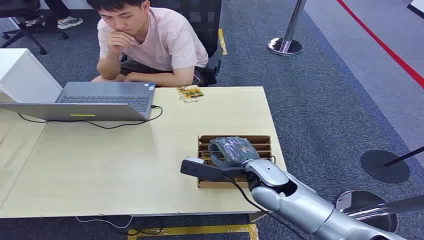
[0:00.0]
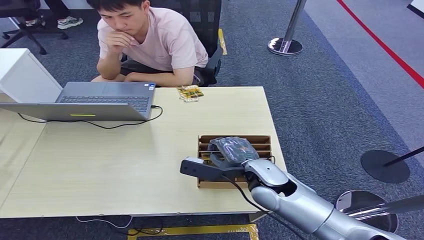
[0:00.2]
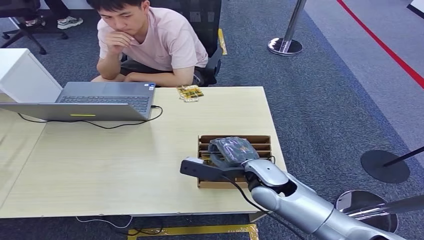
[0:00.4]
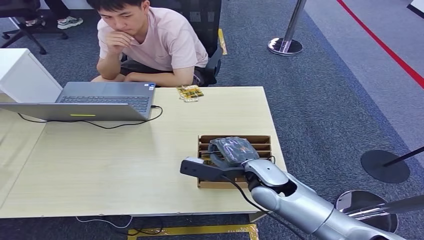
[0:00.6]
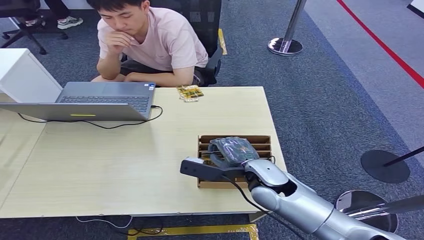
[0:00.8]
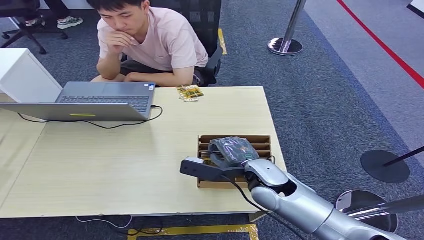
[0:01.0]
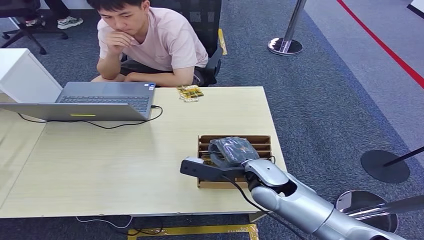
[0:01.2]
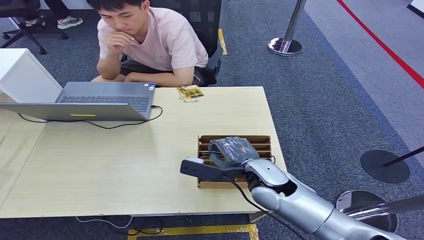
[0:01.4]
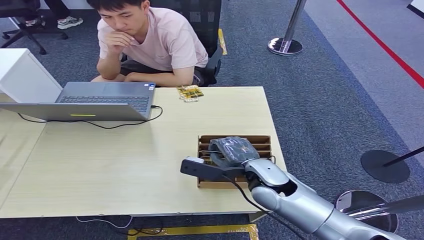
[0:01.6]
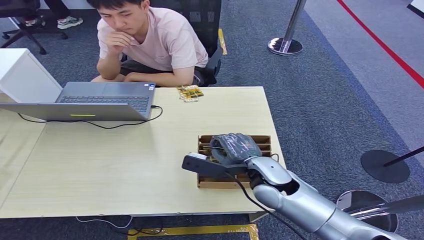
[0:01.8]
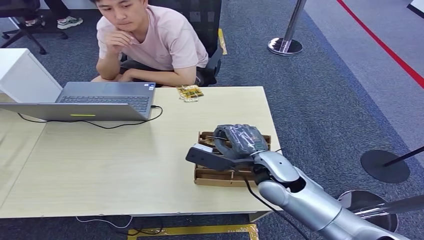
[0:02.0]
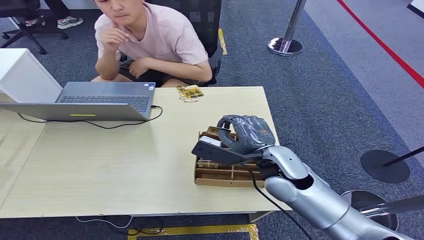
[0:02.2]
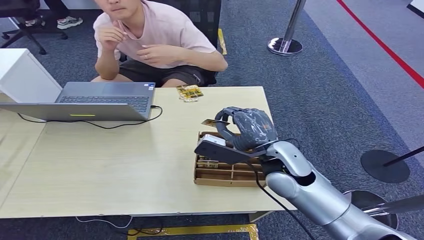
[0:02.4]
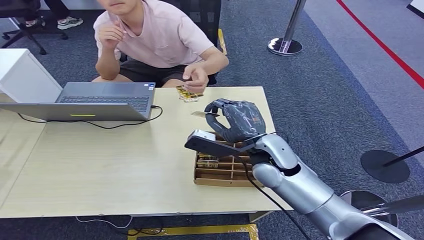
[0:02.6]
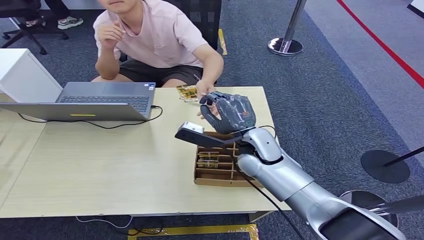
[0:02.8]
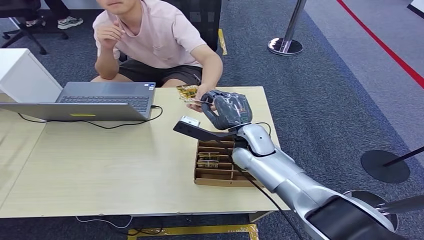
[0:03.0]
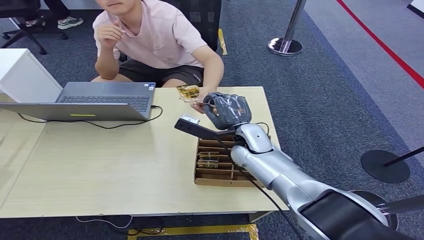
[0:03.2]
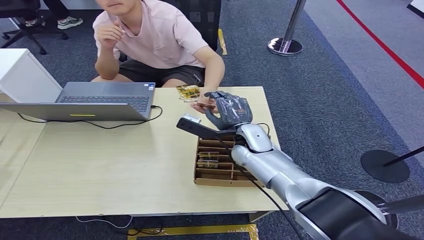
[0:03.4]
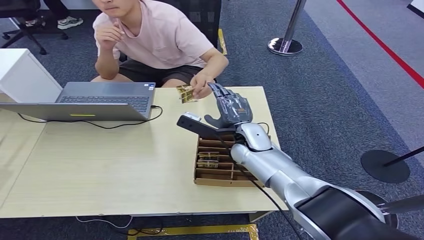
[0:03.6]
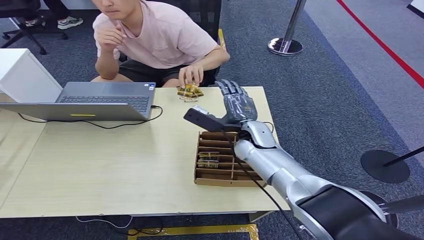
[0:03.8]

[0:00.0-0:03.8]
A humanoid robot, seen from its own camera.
Step, 0:00.0 to 0:02.0: Pick up the room card from the card holder.
Step, 0:02.4 to 0:03.8: Hand the room card to the target.
0:01.2 to 0:02.6: The right hand moves upward, about 5 cm.
0:02.6 to 0:03.8: The right hand shifts roughly 10 cm forward.

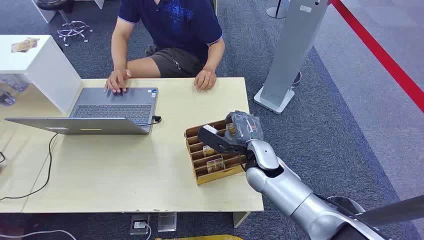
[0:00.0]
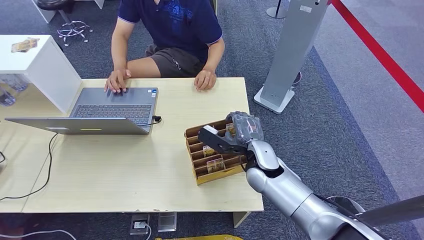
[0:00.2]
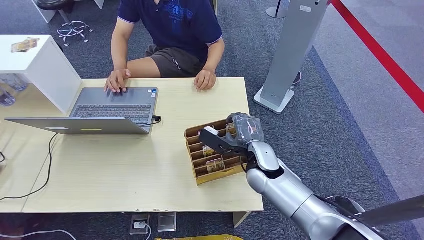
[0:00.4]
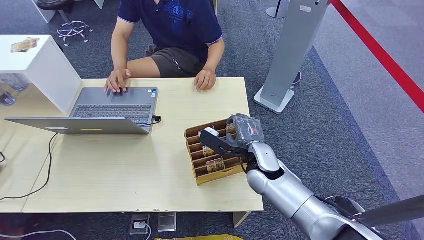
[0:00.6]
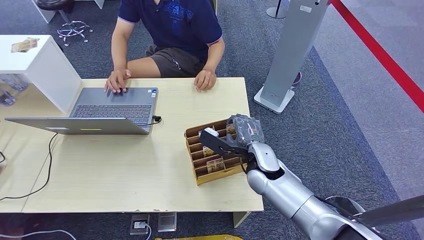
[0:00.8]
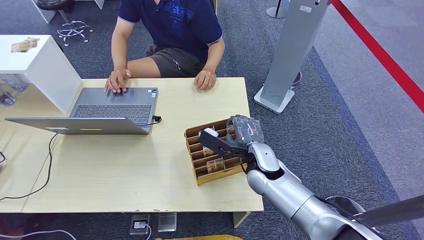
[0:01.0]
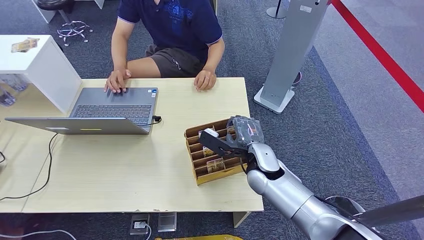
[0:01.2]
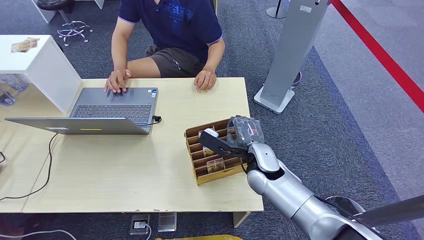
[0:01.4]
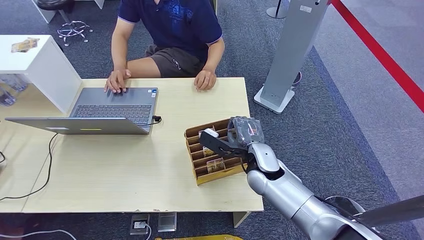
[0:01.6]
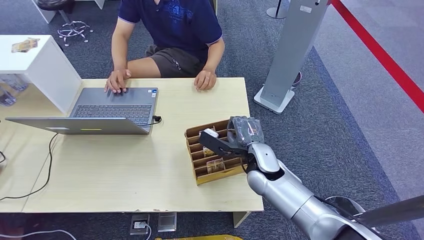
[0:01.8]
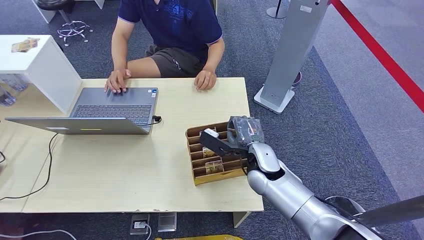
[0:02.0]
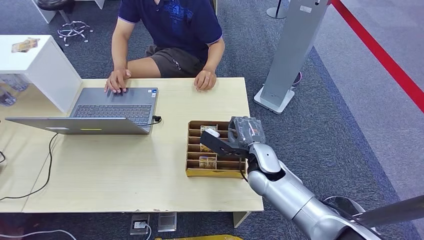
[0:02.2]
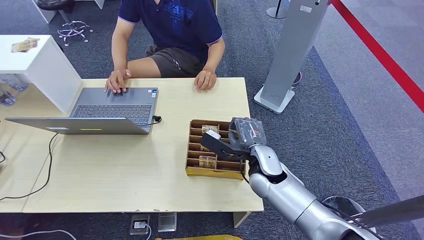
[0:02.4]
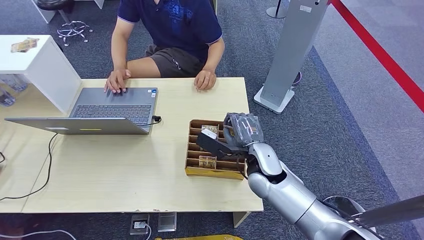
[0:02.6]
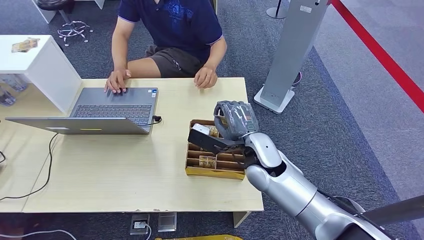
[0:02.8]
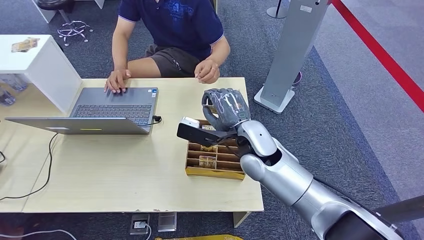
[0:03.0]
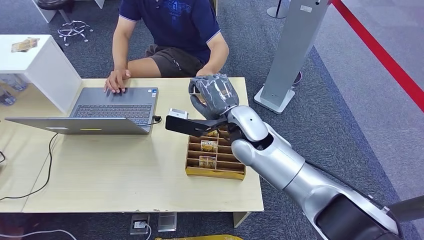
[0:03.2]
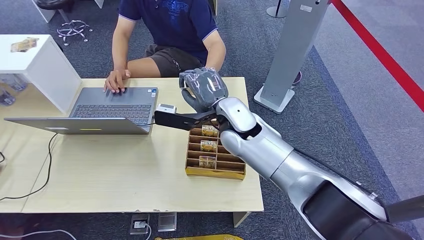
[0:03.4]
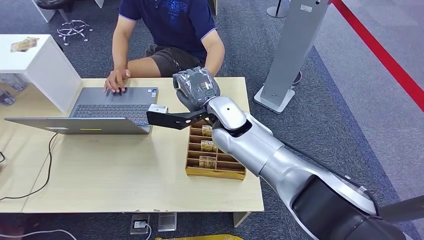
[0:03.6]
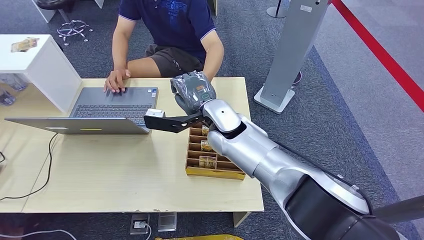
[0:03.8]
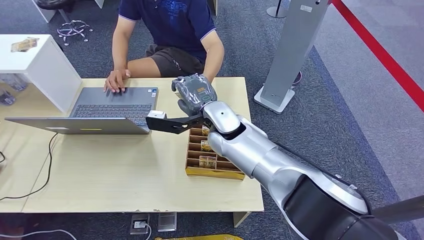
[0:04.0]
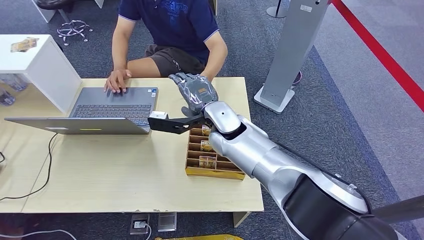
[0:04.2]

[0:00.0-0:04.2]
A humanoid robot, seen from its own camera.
Step, 0:00.0 to 0:02.8: Pick up the room card from the card holder.
Step, 0:03.2 to 0:04.2: Hand the room card to the target.
0:01.4 to 0:02.8: The right hand is displaced upward by roughly 5 cm.
0:02.8 to 0:04.2: The right hand moves to the left and forward, roughly 10 cm.
